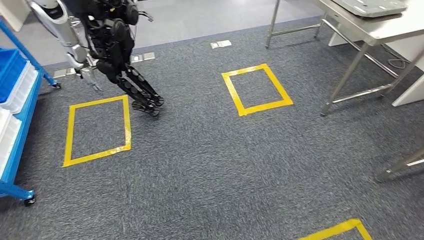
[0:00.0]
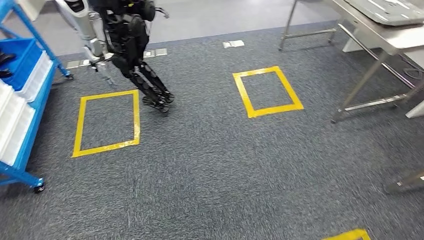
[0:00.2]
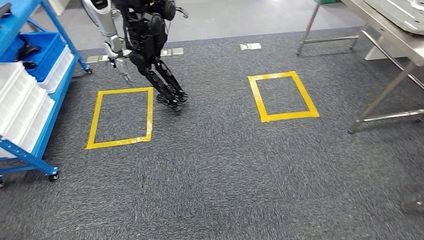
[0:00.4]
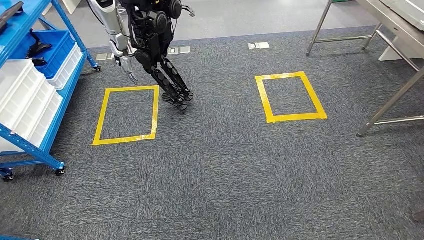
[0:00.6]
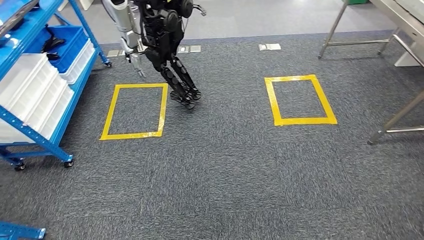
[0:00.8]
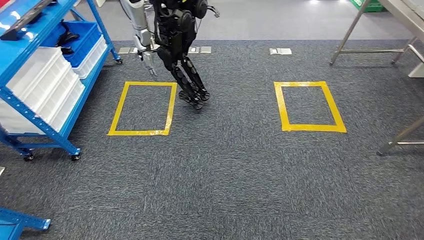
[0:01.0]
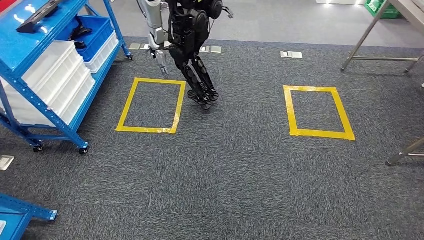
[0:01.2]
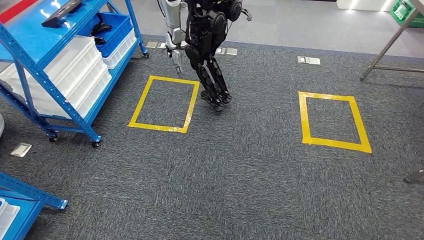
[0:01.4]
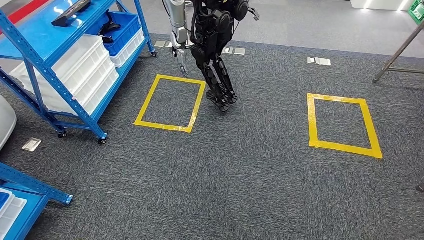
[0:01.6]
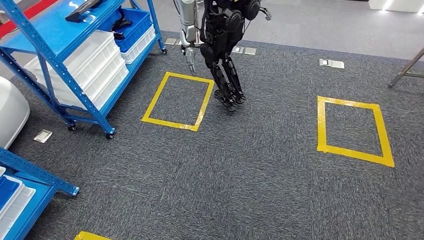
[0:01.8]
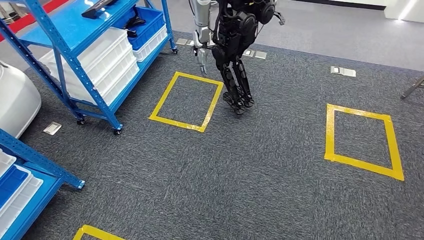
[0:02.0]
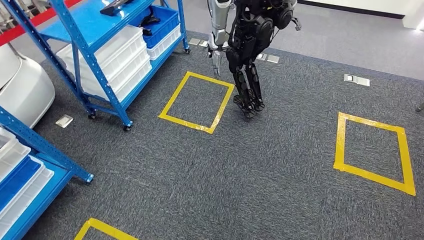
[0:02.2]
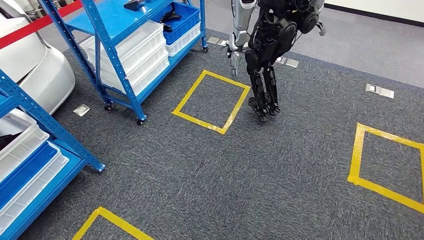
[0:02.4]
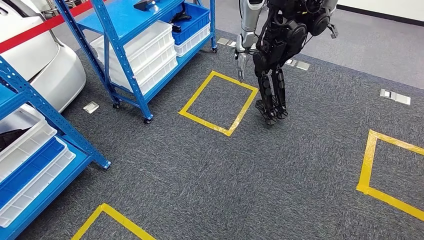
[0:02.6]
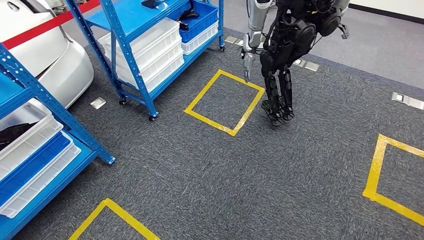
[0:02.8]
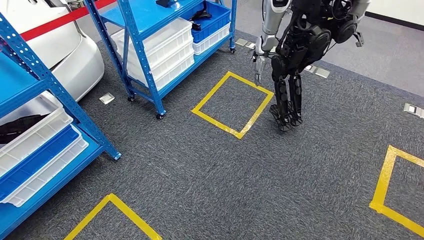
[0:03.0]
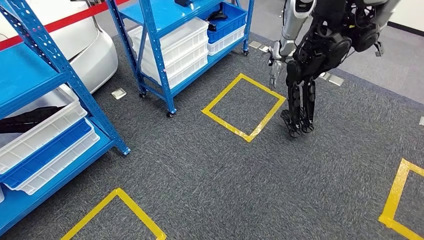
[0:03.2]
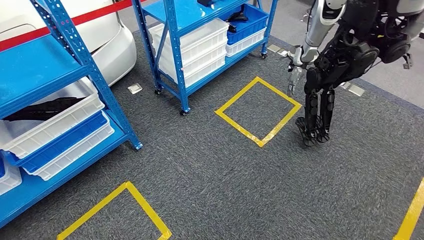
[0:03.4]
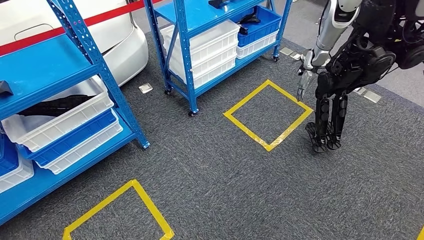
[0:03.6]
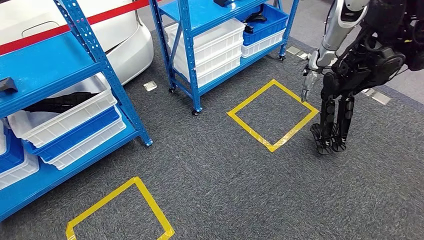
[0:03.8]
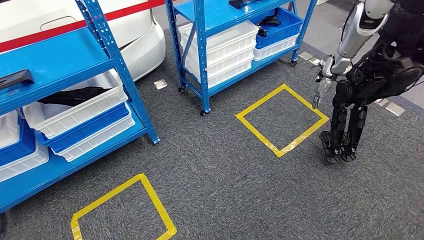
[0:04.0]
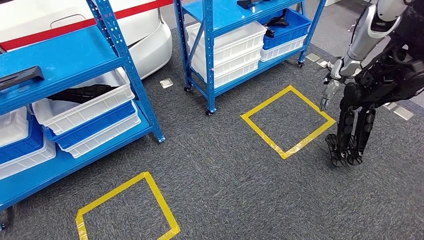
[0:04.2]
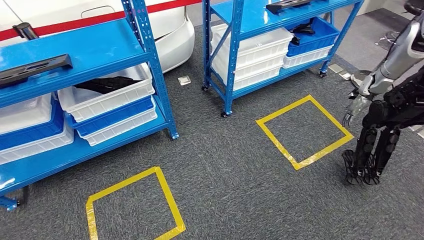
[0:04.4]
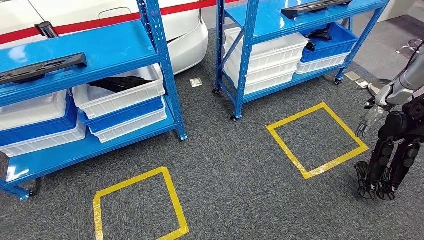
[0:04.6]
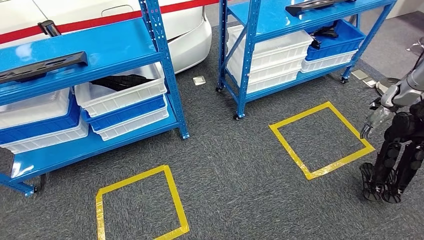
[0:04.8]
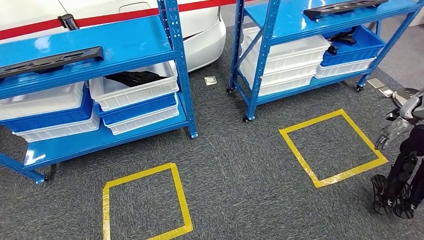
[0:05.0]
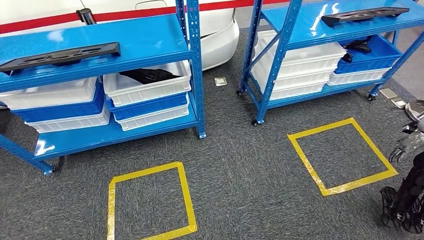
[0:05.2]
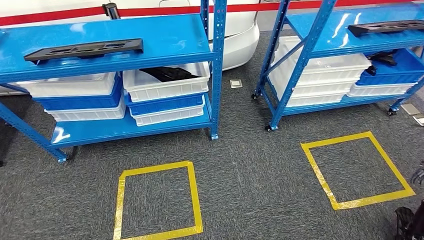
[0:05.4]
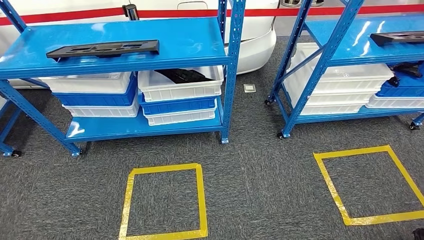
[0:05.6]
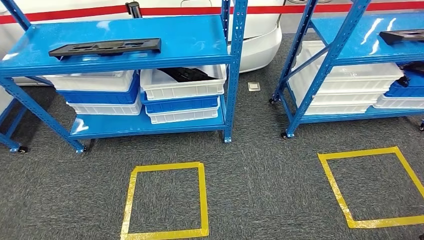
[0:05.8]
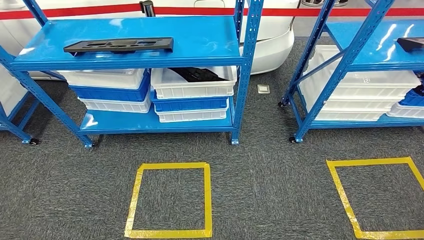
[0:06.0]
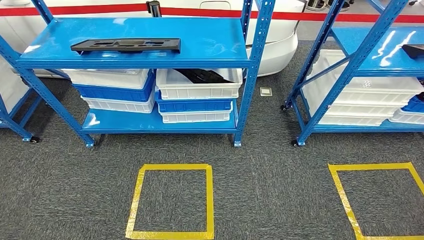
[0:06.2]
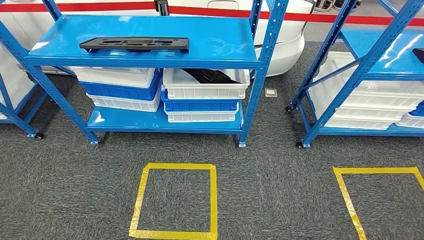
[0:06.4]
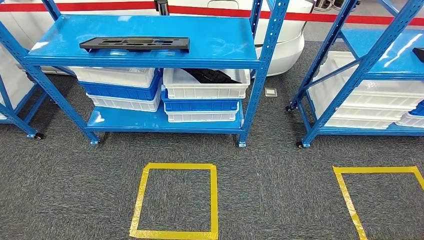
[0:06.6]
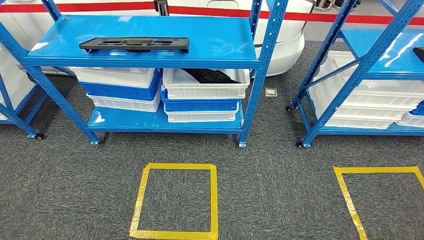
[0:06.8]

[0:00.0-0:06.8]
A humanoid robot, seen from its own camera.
Step, 0:00.0 to 0:06.8: Move to the initial position of the shelf.
